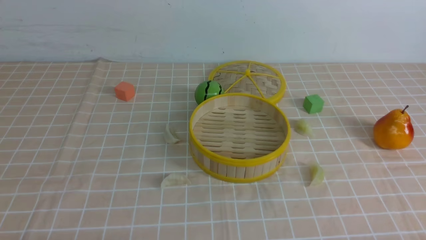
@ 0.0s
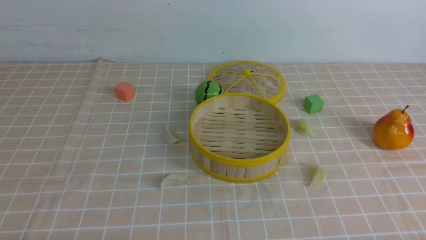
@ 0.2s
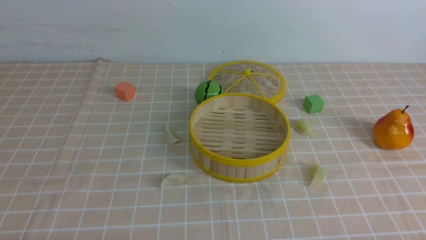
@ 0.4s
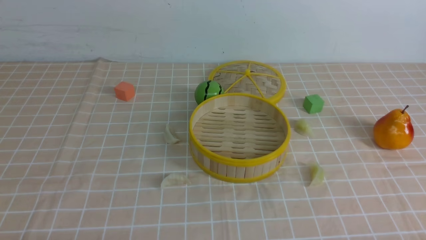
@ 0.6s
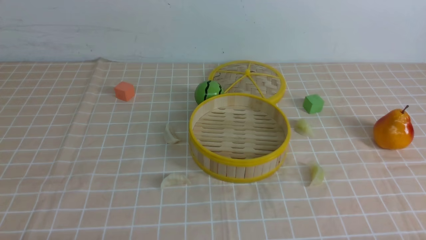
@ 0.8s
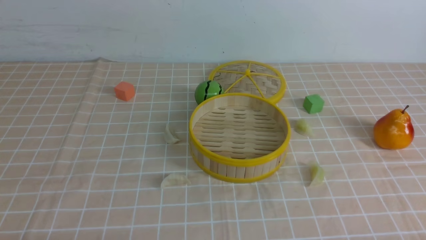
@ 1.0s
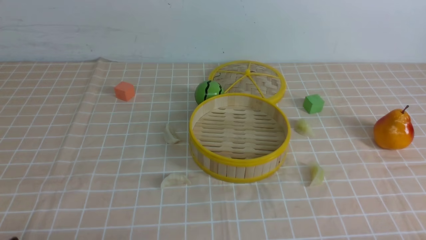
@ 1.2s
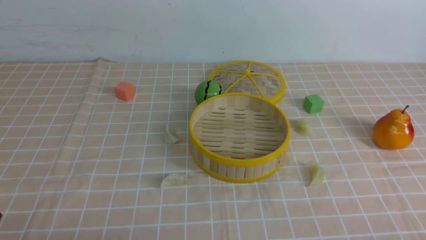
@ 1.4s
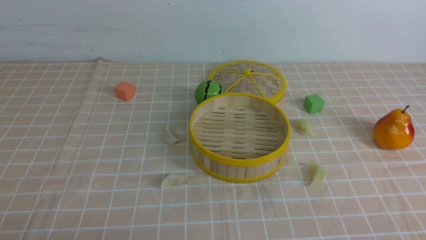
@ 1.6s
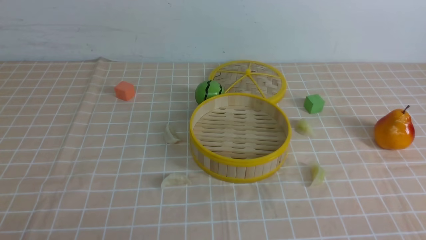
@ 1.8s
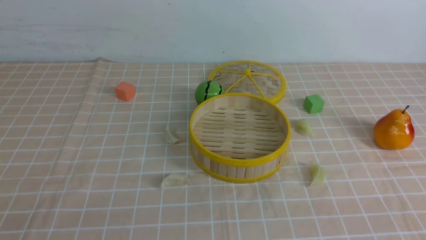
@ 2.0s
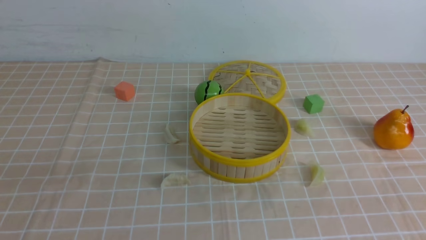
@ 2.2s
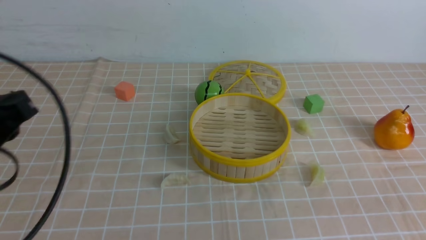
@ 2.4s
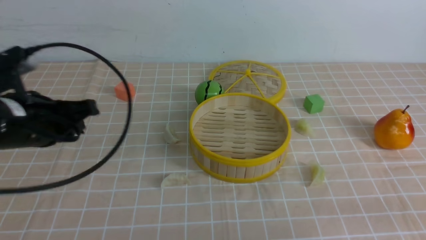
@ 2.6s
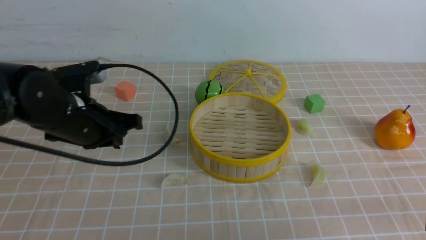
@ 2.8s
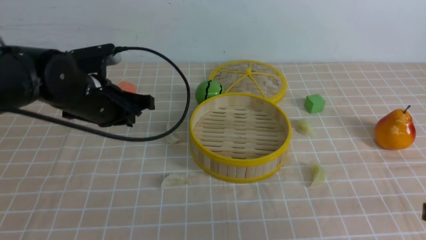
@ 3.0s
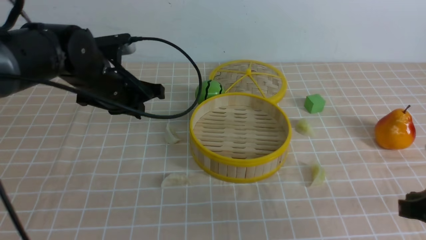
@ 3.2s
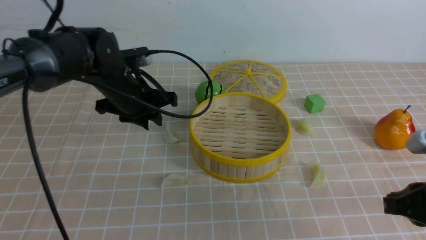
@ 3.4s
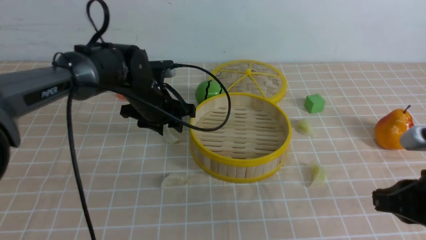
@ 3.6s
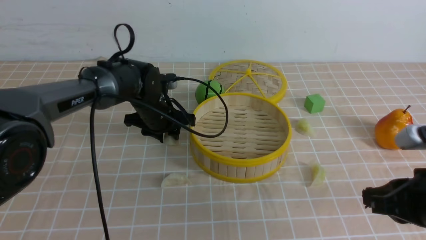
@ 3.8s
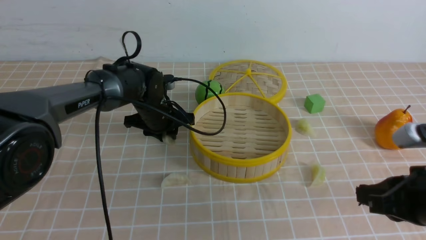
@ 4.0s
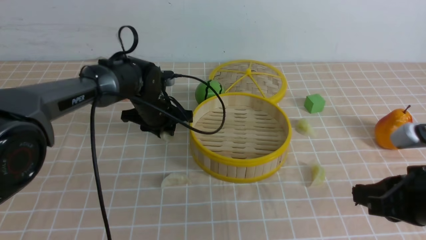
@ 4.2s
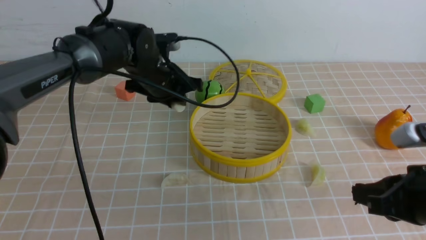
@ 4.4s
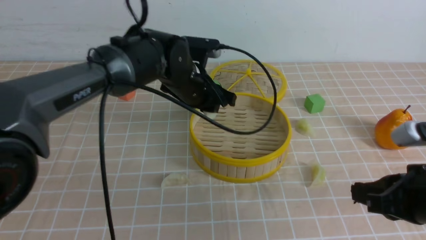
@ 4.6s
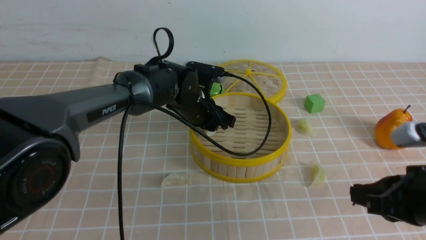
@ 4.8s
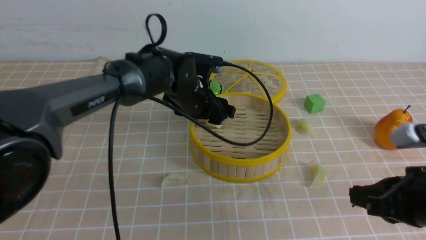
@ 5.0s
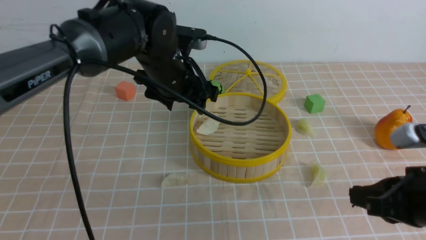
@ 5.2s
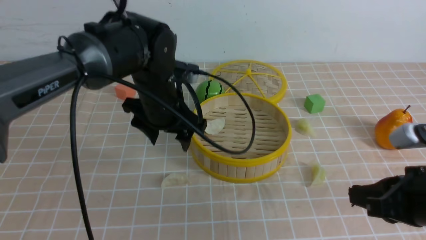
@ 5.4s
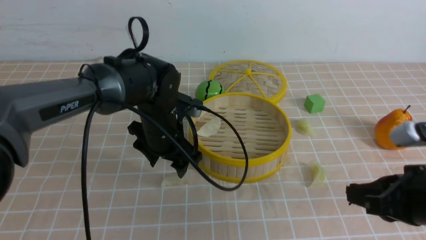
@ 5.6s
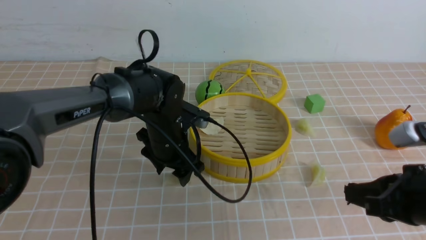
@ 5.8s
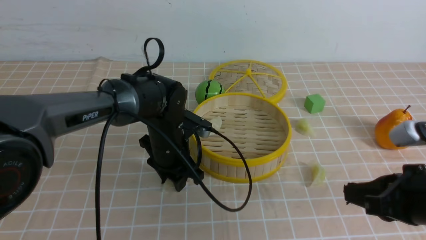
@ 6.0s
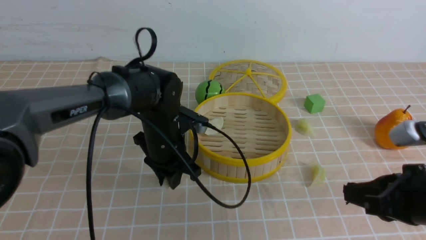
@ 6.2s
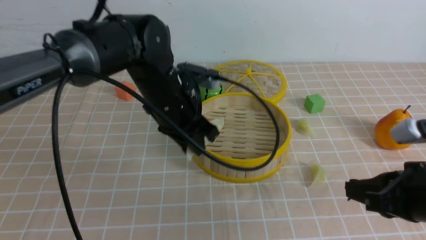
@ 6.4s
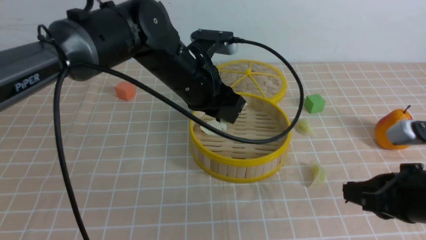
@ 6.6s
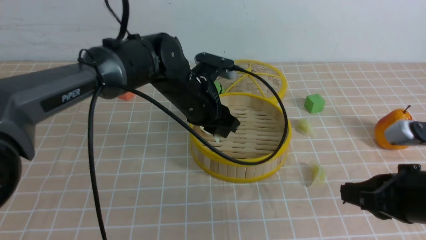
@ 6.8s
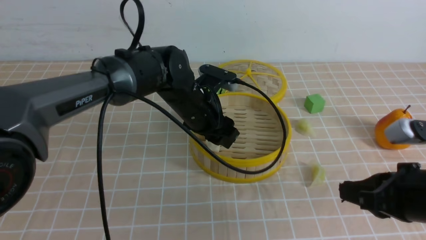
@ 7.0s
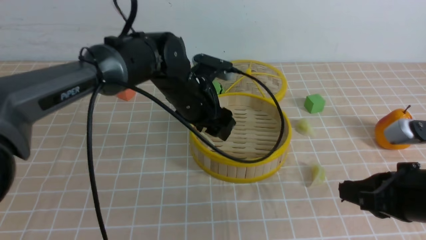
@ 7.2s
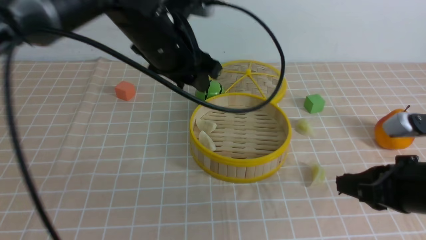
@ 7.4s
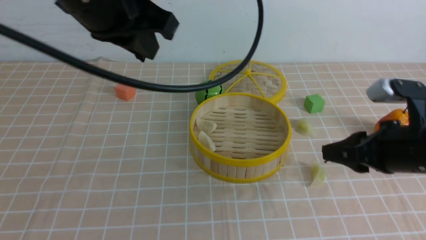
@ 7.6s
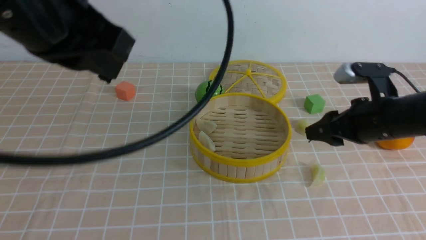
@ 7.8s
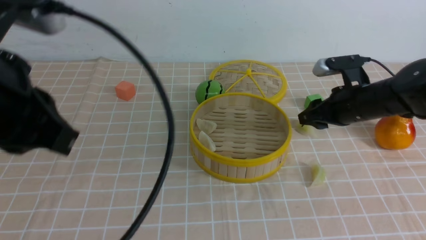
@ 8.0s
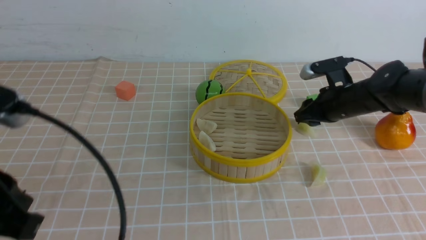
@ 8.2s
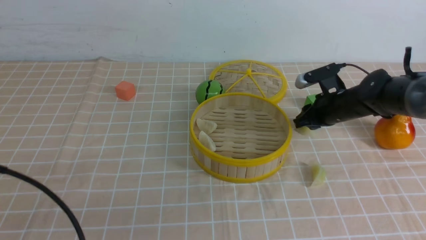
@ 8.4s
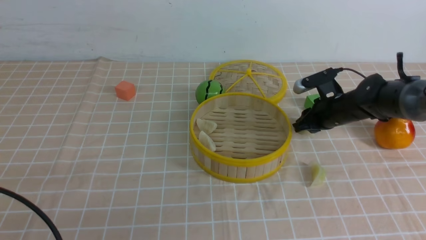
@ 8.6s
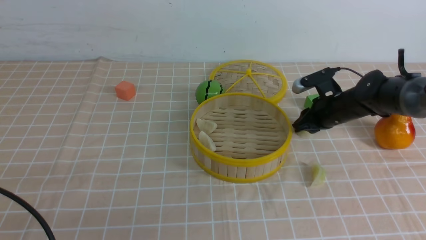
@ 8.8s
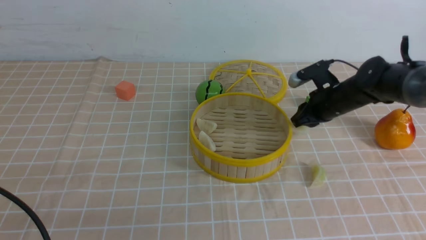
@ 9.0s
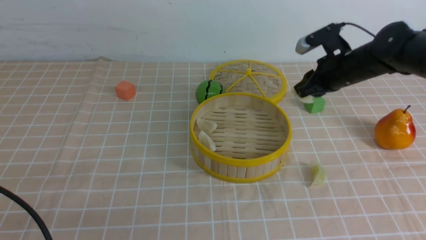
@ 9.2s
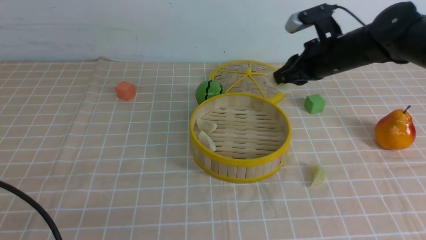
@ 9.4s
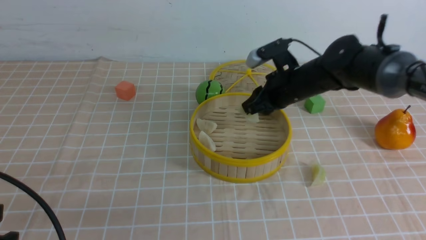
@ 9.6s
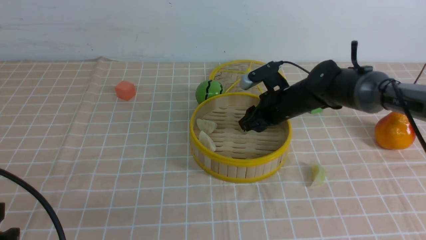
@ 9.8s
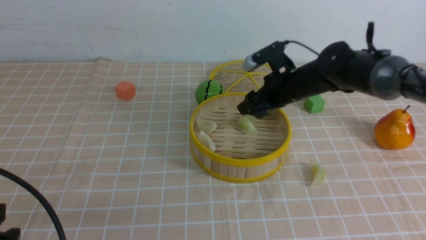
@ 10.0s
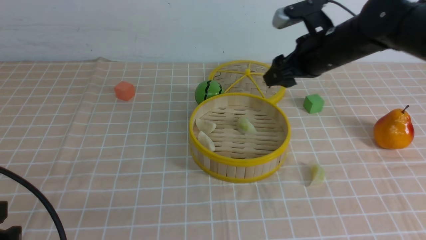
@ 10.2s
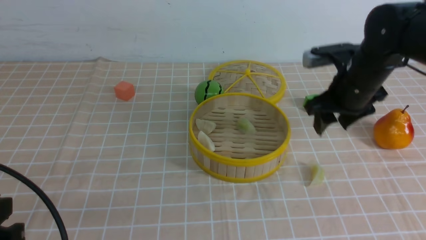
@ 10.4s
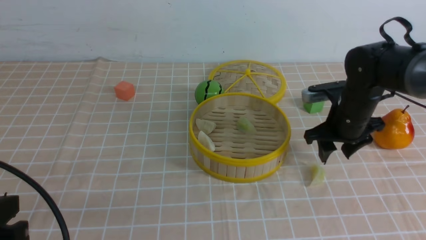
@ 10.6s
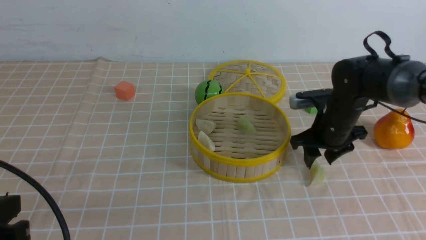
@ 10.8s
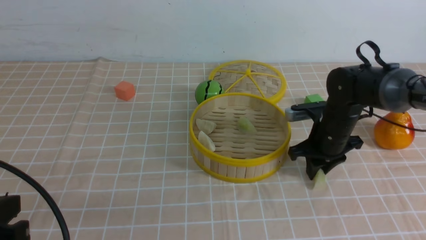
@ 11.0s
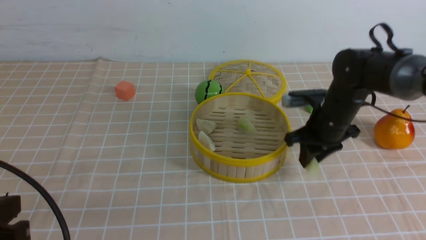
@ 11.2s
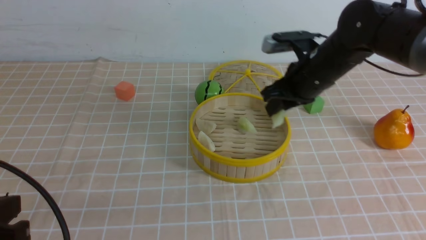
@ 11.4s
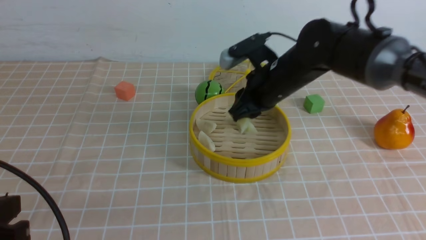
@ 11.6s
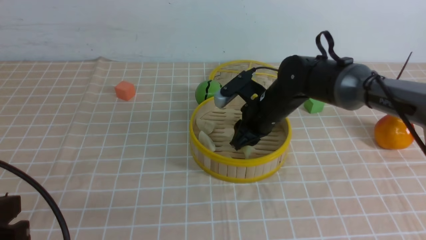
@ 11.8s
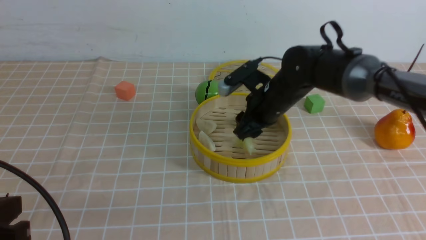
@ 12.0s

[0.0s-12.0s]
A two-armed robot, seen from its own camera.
Task of the whole recording: put the dumplings into the steamer on the table with the brown tablecloth.
Step, 0.0s to 4.0s: use the left arm to grab a dumpling.
Step, 4.2s to 5.0s: use the left arm to put the dumpling into the steamer.
Step, 5.2s to 6.0s: use the left arm to grab a dumpling.
Step, 6.2s to 7.2s: use the left arm to put the dumpling into the steamer.
Step, 7.4s to 8.8s: use the right arm to grab a dumpling.
Step, 9.0s to 10.0s: use the right arm to put the dumpling into the steamer.
Step, 10.2s to 11.0s: use the right arm to grab a dumpling.
1.6s to 3.0s: The right gripper moves forward, about 10 cm, and closes its fingers; the left gripper travels forward by some 30 cm, and closes its fingers.
3.0s to 4.4s: The right gripper changes place by about 5 cm. Meanwhile the left gripper goes some 15 cm forward and to the right, and opens its fingers.
4.4s to 6.0s: The left gripper shifts about 10 cm backward and downward, and opens and closes again.
6.0s to 7.6s: The left gripper travels upward by about 25 cm, and closes up, while the right gripper is displaced forward by approximately 10 cm, and opens up.
7.6s to 9.0s: The right gripper moves forward, roughly 20 cm. Meanwhile the left gripper goes some 25 cm backward, downward and to the left.
9.0s to 10.4s: The right gripper travels backward by some 5 cm, moves approximately 10 cm to the left and comes back, and opens up.
10.4s to 12.0s: The right gripper travels to the left by roughly 10 cm.

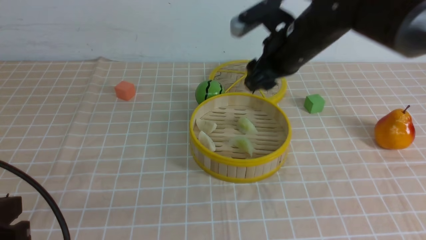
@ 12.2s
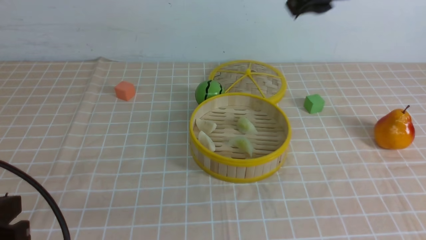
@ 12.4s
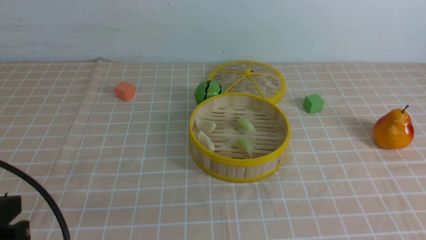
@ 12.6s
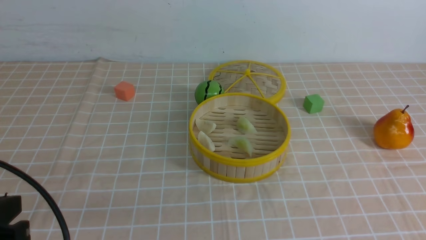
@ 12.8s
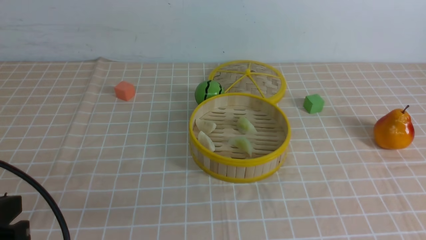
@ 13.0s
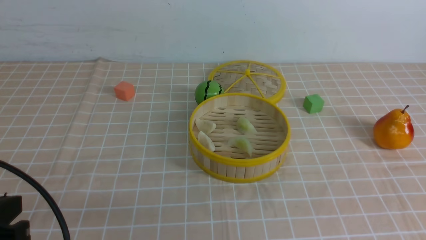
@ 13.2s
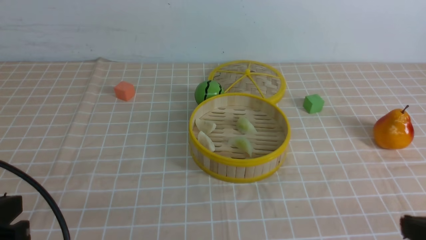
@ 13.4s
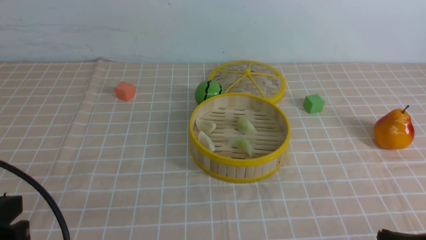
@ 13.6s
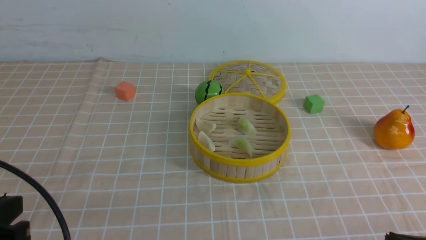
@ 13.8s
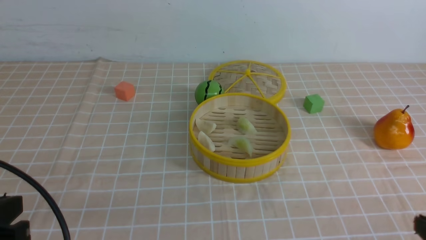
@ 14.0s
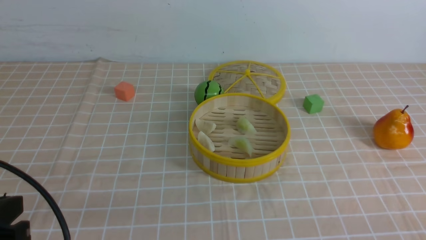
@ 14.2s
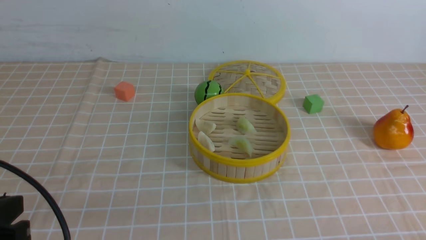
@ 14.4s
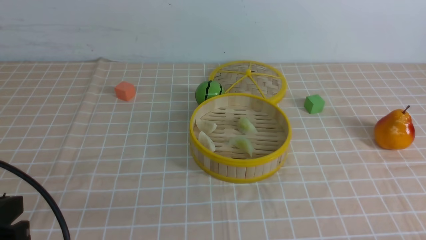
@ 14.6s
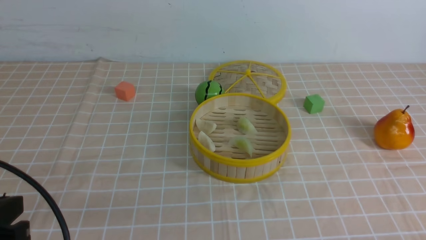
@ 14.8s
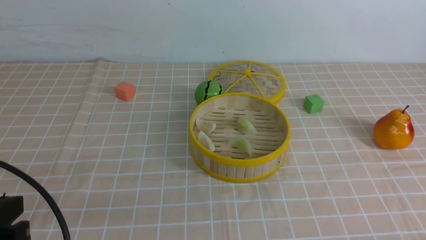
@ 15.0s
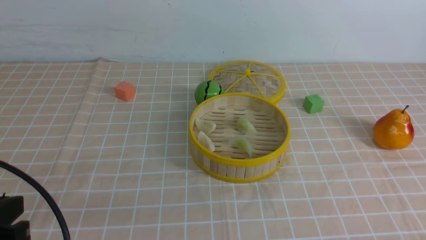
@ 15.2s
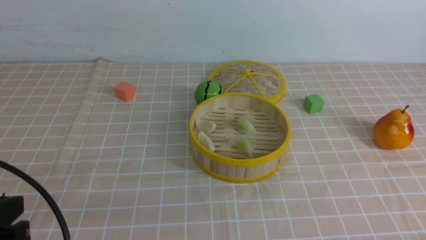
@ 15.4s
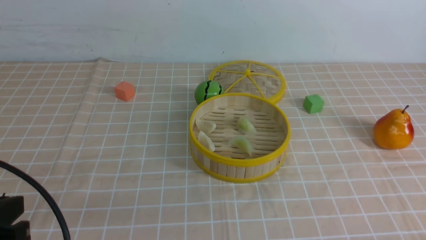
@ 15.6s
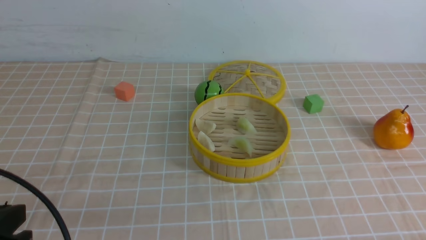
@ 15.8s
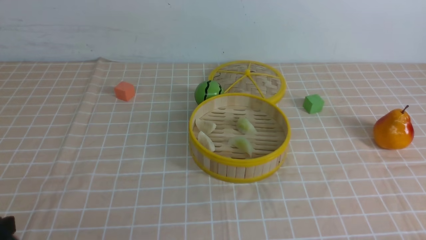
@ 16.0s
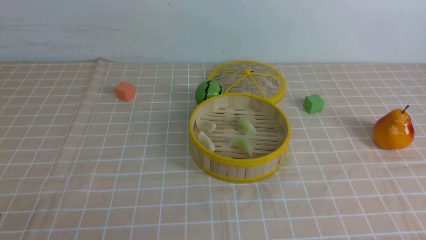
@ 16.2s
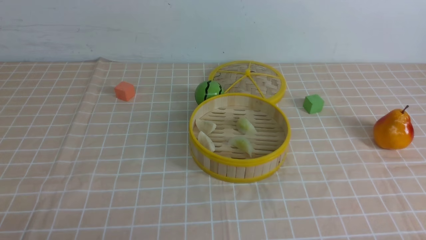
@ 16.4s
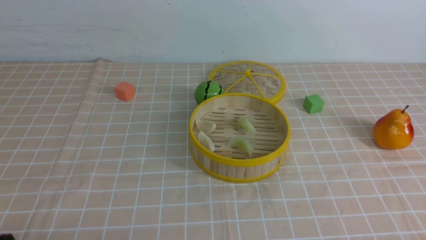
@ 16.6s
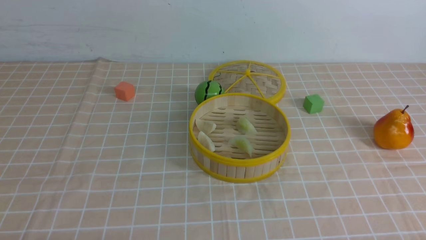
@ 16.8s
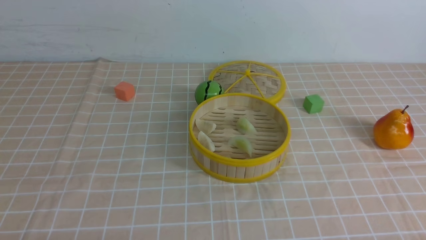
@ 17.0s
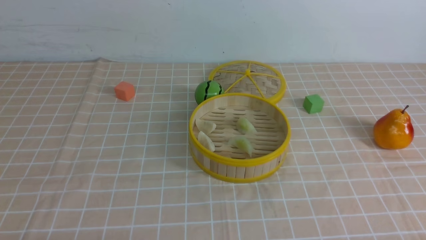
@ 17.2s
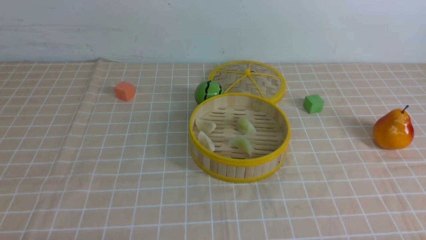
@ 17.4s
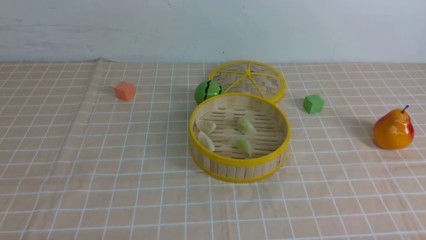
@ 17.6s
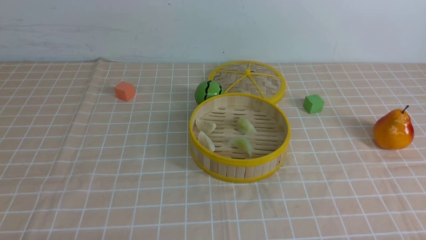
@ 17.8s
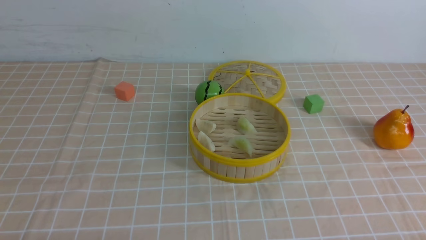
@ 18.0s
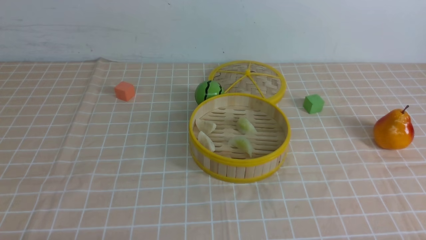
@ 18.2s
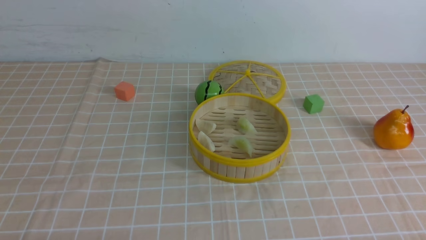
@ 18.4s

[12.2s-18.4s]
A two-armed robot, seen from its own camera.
Task of the whole recording: put the dumplings into the steamer on the table with the brown tablecloth.
12.2s to 13.8s: The right gripper shifts roughly 35 cm backward, to the right and downward, and closes.
15.4s to 16.8s: The left gripper goes approximately 15 cm downward and backward.
16.8s to 18.4s: Both grippers stay put.
